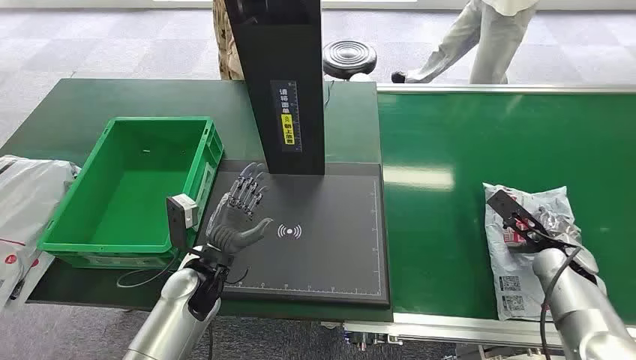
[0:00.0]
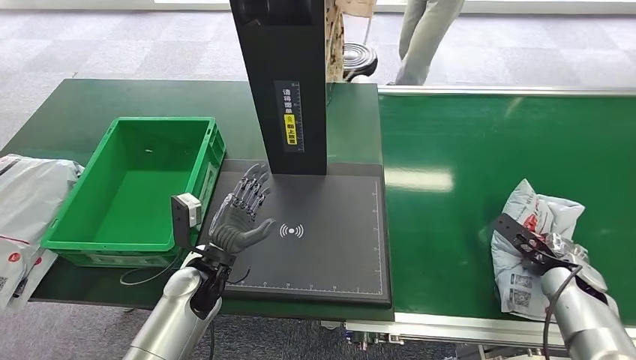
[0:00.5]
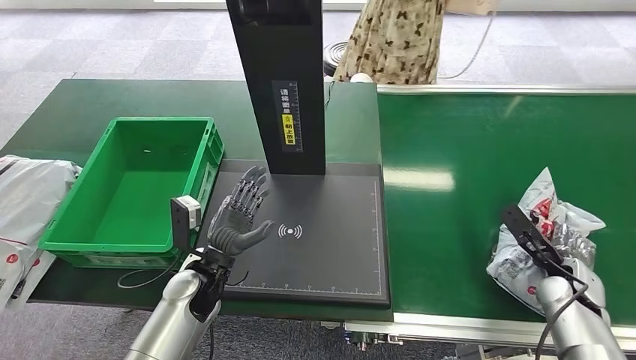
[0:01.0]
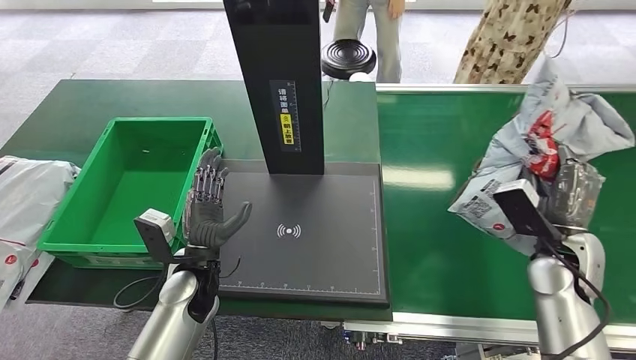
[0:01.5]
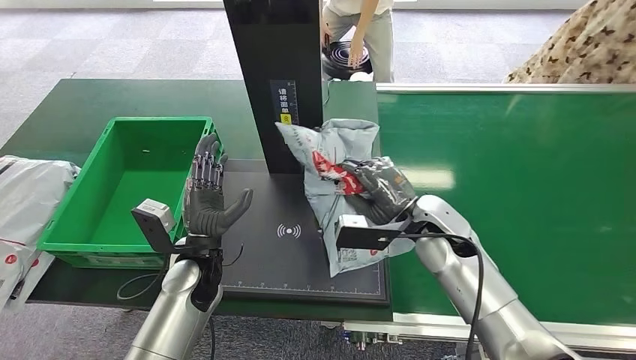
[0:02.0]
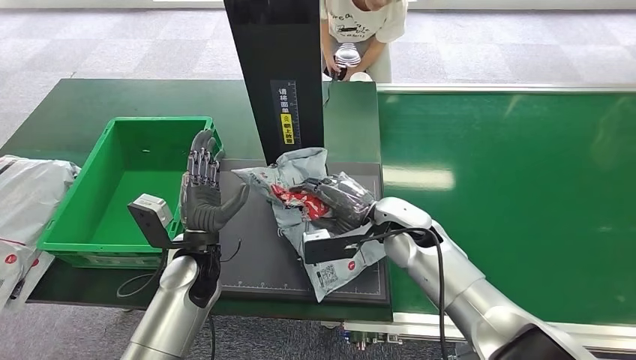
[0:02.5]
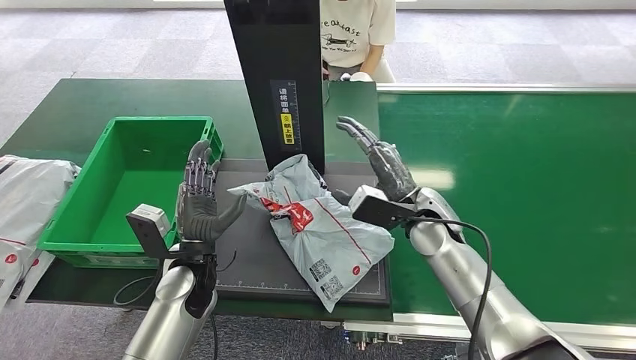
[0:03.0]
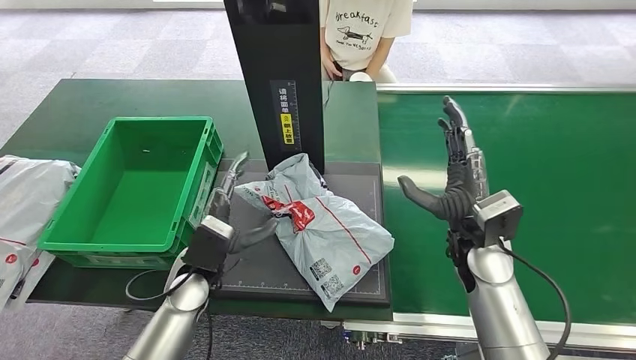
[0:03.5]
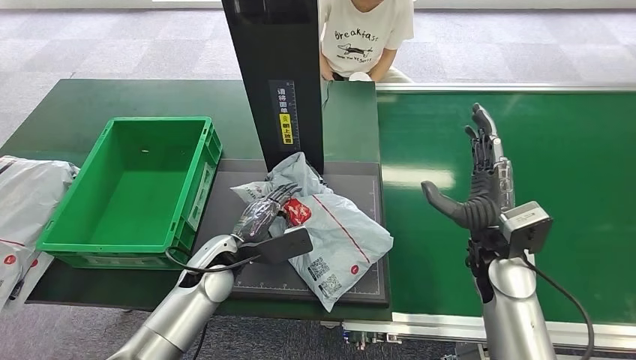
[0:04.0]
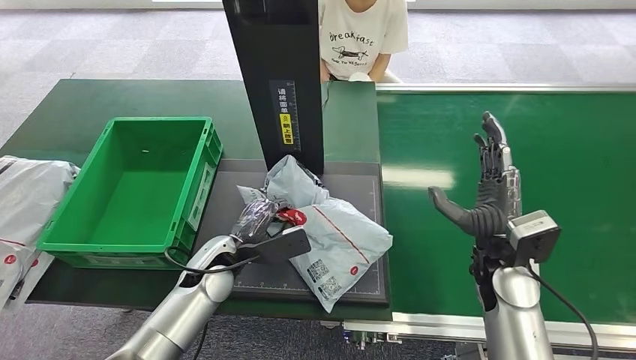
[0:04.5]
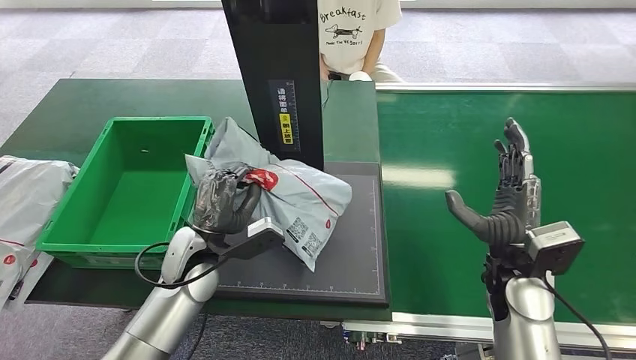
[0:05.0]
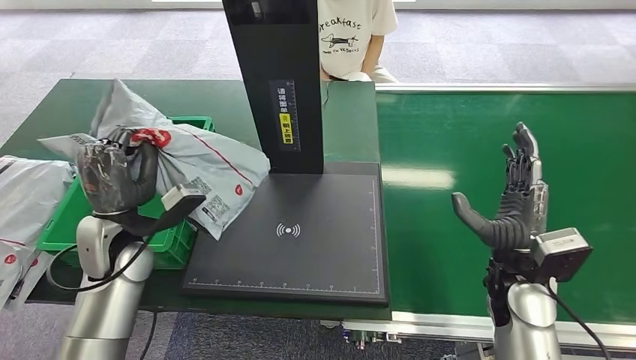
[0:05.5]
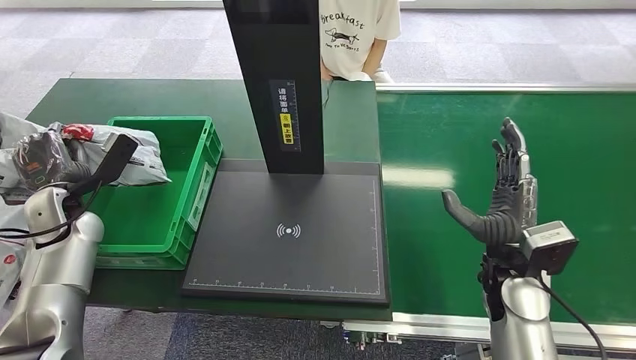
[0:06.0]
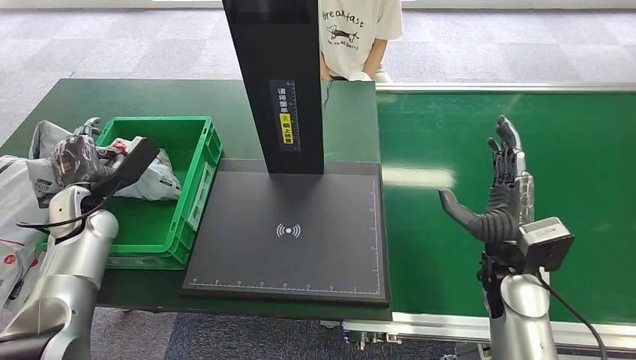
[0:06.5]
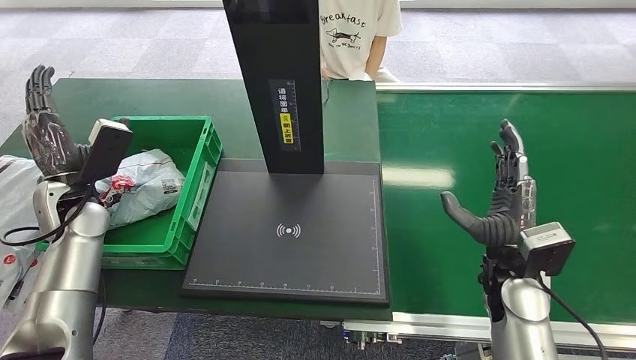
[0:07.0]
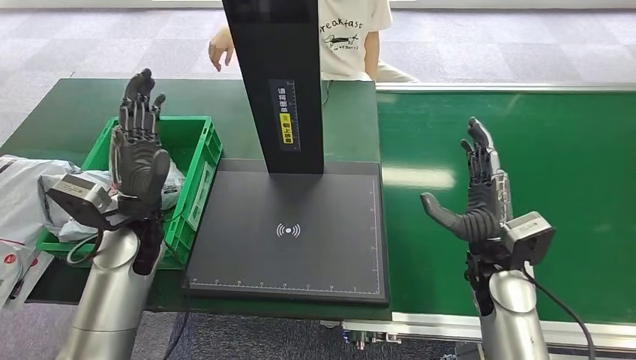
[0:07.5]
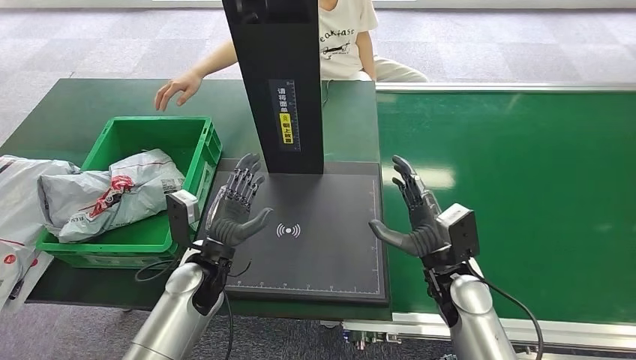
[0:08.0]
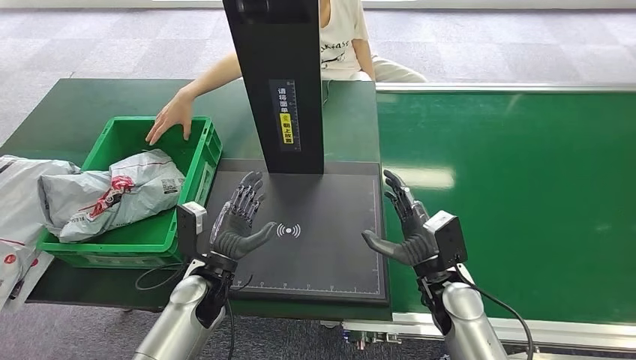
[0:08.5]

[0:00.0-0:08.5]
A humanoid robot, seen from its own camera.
Task of the whole recording: Weigh the package on the weighing device and place it in the left basket.
Step, 0:00.0 to 0:01.5: Pick up the package from the conveyor belt.
Step, 0:02.0 to 0:03.5: Place the package onto the inbound machine.
Step, 0:04.0 to 0:05.5: Pick up the package from the inbound machine.
Step, 0:06.0 to 0:08.5: Place the package into the parcel locker.
